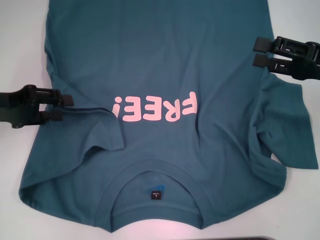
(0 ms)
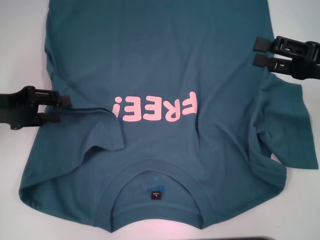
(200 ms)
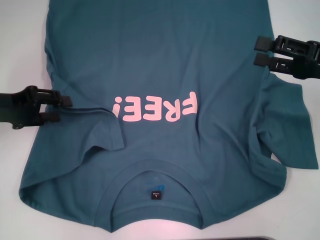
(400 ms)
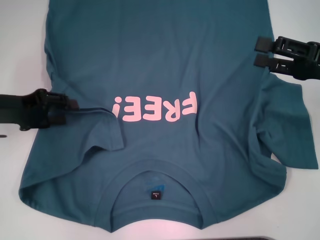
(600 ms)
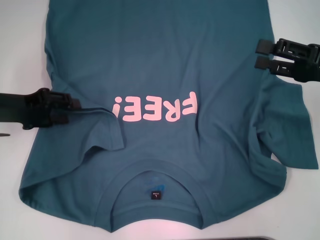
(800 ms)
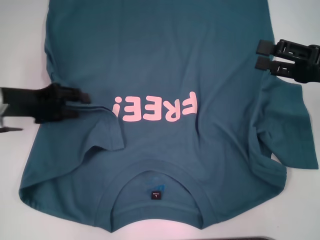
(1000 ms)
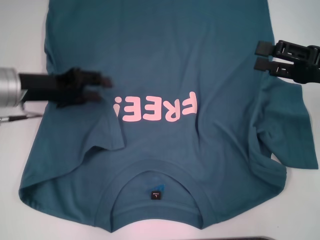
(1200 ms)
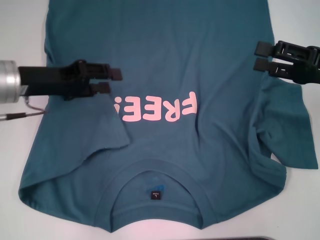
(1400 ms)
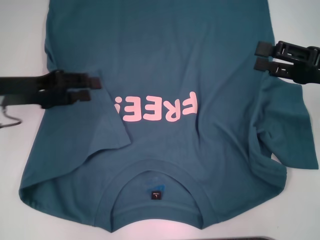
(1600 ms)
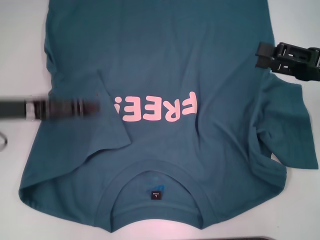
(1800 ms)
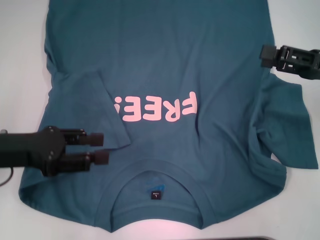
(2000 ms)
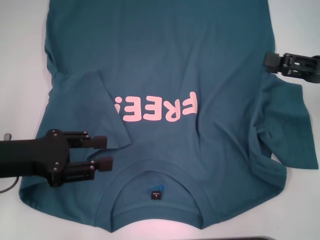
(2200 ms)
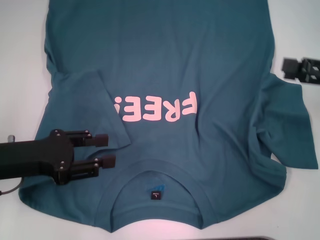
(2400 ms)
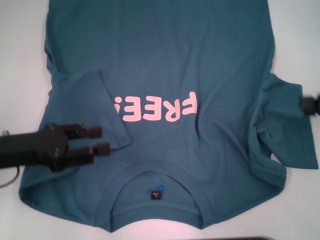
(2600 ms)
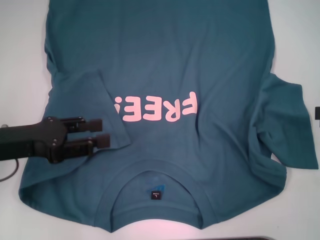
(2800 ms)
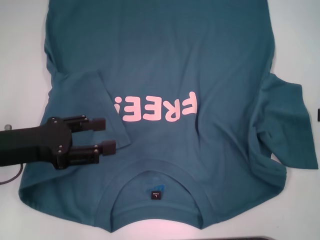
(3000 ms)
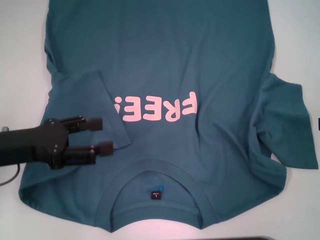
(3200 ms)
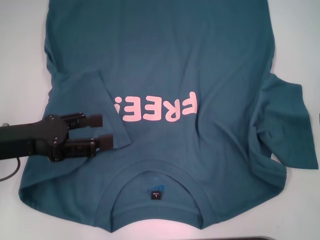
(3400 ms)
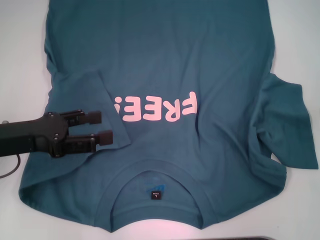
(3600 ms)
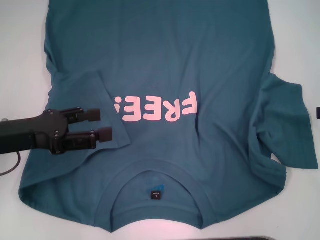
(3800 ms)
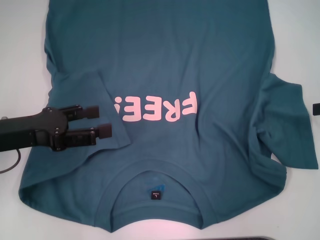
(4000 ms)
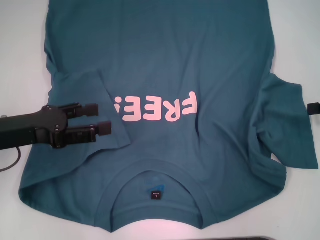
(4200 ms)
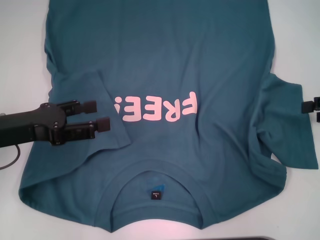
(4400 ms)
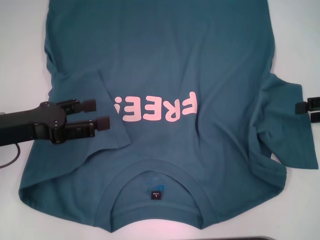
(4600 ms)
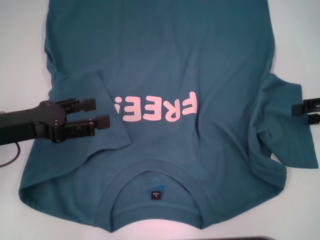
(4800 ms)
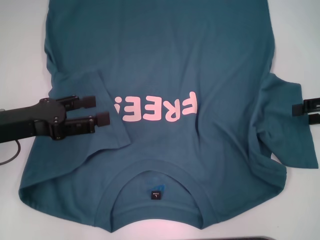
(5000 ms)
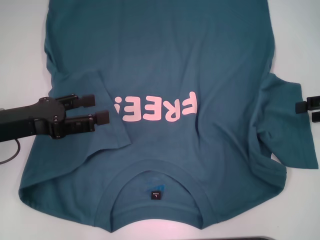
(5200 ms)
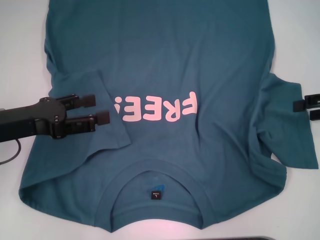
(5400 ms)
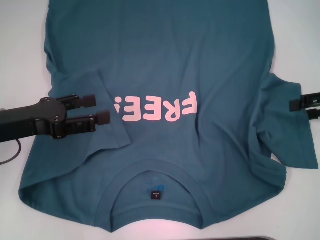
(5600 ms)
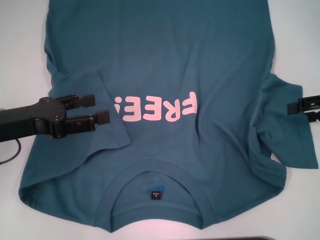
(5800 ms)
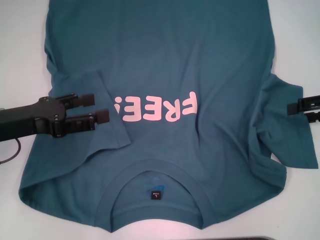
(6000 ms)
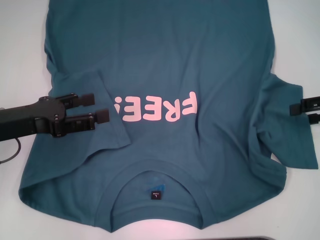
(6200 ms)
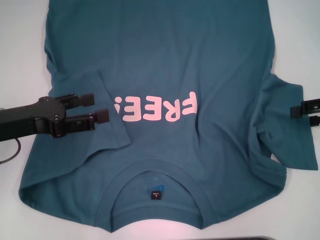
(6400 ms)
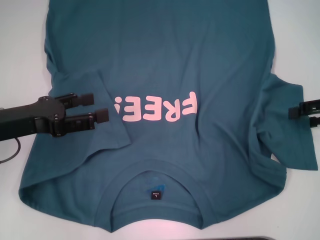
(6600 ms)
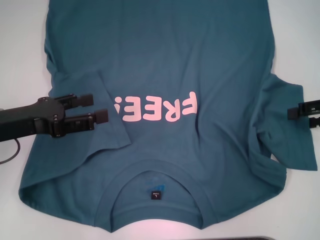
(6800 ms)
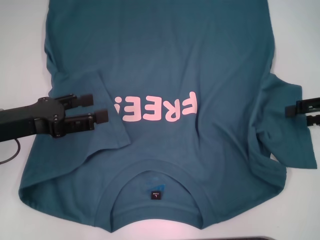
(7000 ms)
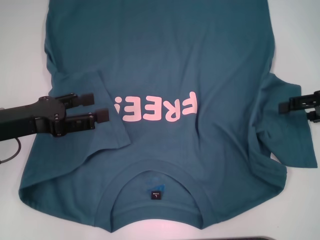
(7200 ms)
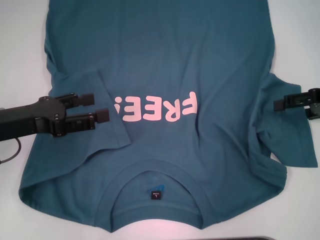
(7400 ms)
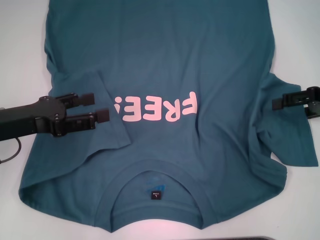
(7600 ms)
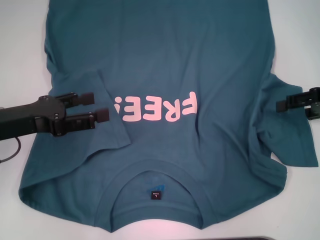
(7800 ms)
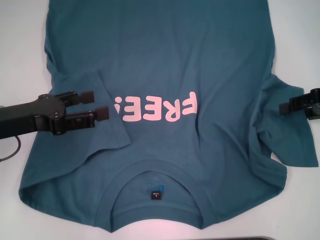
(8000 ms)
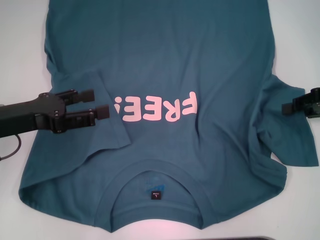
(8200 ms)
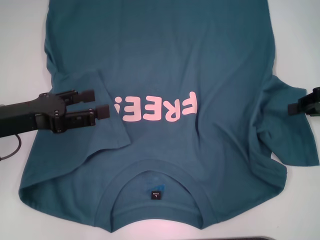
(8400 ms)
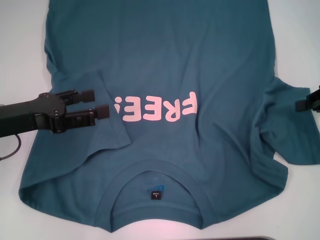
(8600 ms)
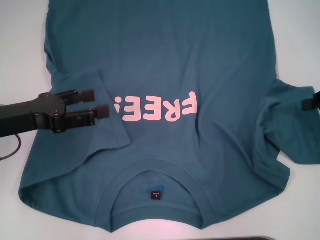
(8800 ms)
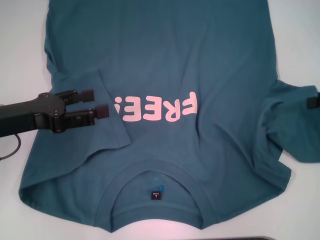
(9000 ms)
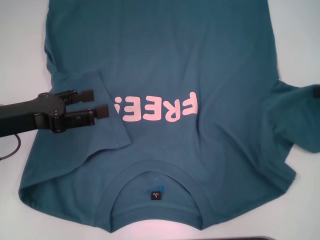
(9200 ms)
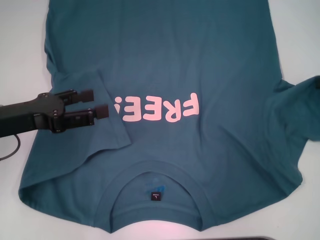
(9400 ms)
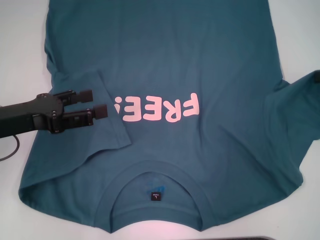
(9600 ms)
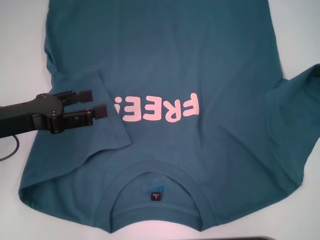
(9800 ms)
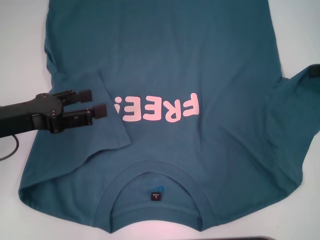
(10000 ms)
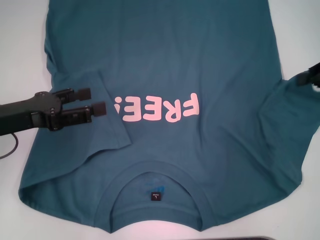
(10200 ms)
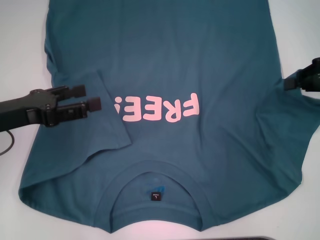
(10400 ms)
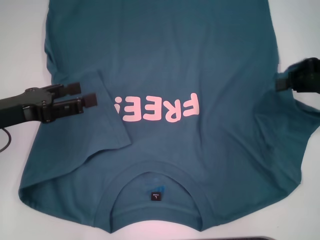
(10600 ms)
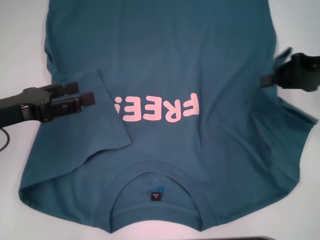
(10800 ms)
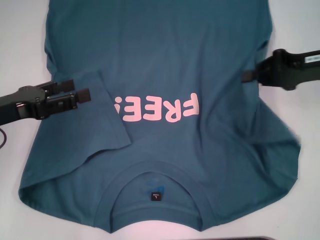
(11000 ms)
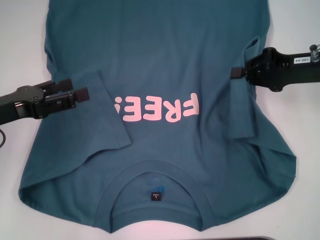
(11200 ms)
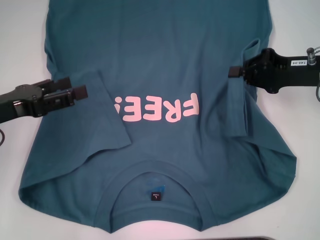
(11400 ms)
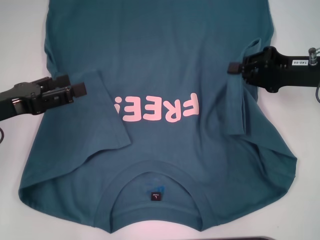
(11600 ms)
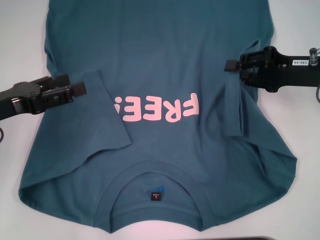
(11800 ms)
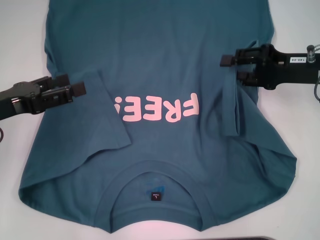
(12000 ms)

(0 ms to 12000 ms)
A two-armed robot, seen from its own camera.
1600 ms - 3000 ms: The right gripper moves to the right, roughly 10 cm. Meanwhile the left gripper moves backward, some 10 cm.
3000 ms - 4400 ms: The grippers move only a little.
4400 ms - 7600 ms: The grippers make only small movements.
7600 ms - 9000 ms: The right gripper closes.
9000 ms - 10400 ms: There are only small adjustments of the grippers.
10400 ms - 12000 ms: The right gripper moves to the left, approximately 5 cm.

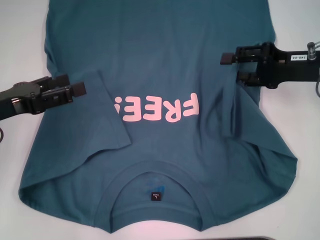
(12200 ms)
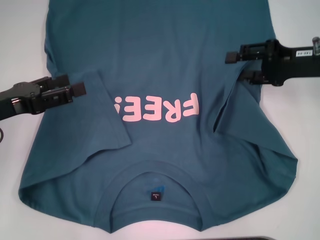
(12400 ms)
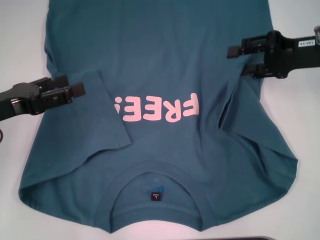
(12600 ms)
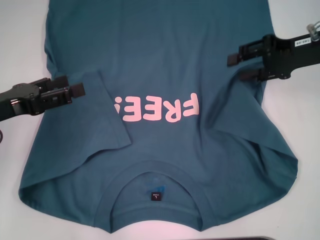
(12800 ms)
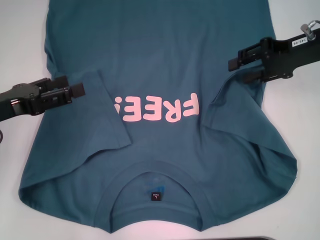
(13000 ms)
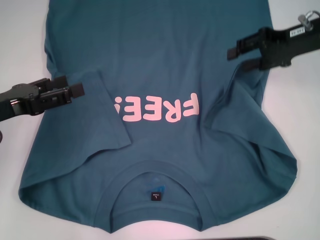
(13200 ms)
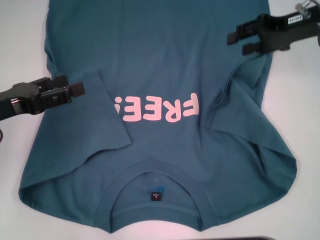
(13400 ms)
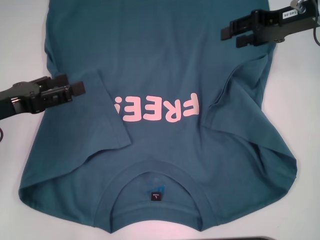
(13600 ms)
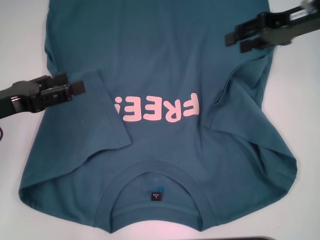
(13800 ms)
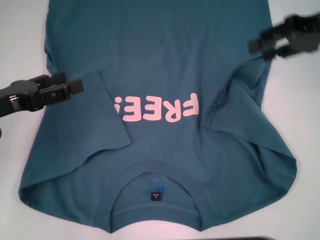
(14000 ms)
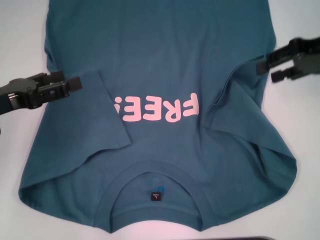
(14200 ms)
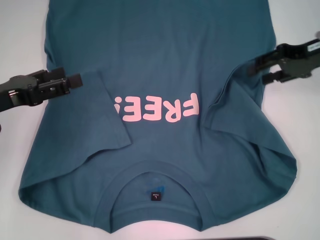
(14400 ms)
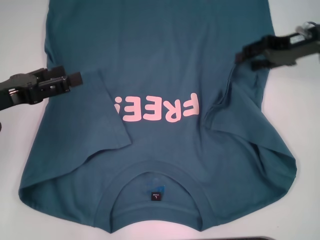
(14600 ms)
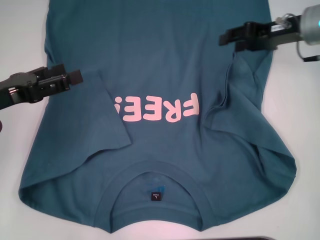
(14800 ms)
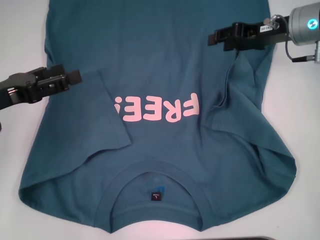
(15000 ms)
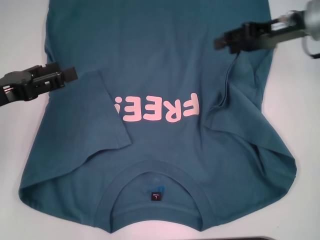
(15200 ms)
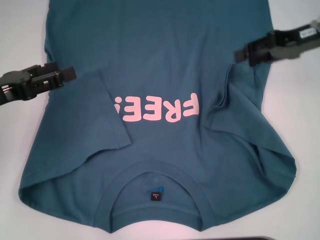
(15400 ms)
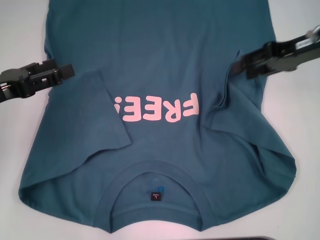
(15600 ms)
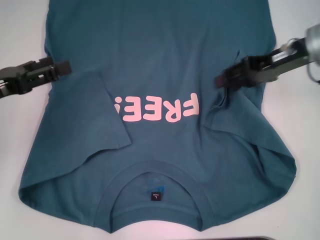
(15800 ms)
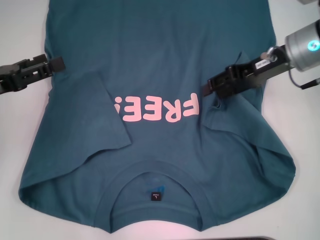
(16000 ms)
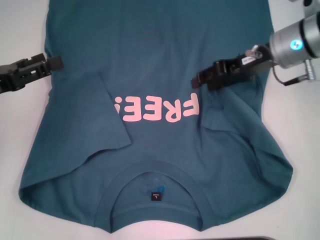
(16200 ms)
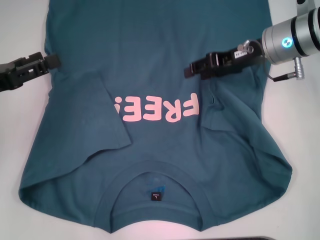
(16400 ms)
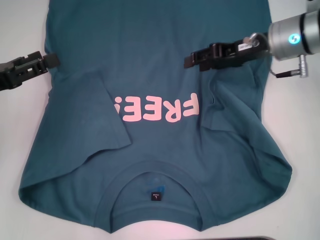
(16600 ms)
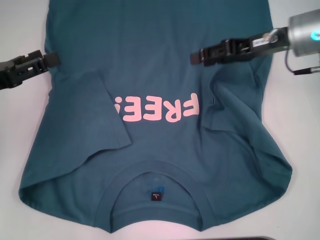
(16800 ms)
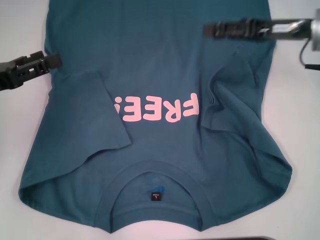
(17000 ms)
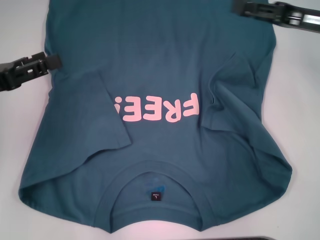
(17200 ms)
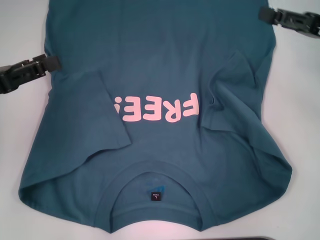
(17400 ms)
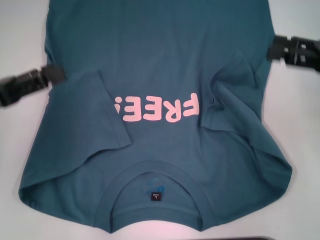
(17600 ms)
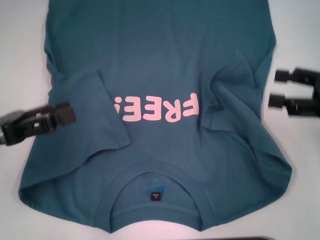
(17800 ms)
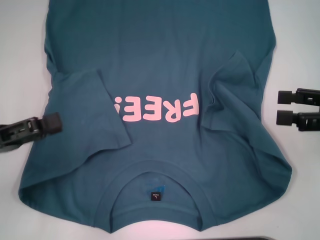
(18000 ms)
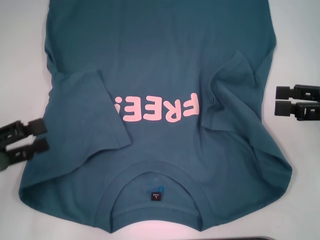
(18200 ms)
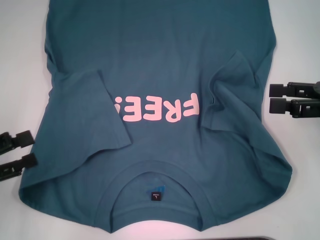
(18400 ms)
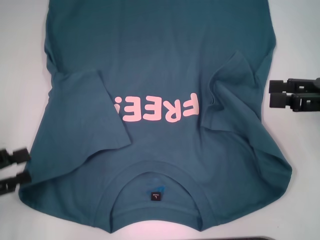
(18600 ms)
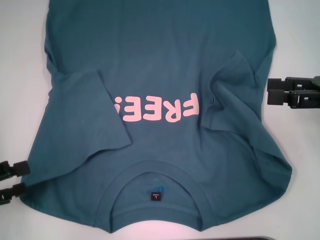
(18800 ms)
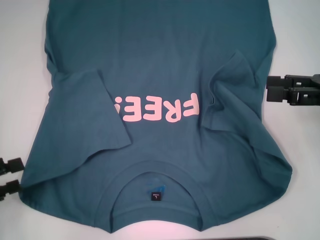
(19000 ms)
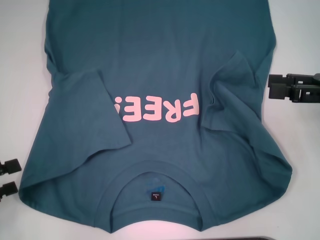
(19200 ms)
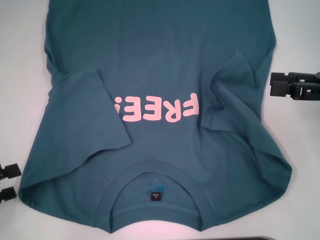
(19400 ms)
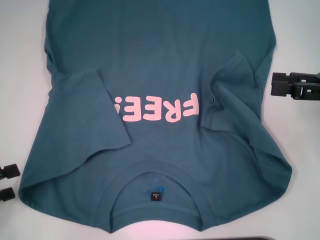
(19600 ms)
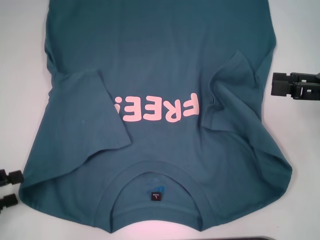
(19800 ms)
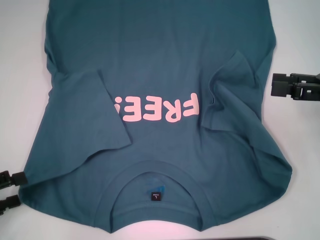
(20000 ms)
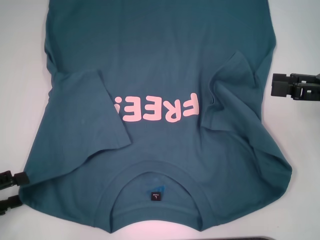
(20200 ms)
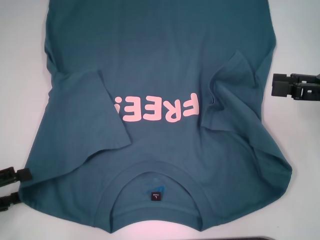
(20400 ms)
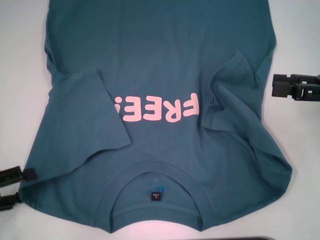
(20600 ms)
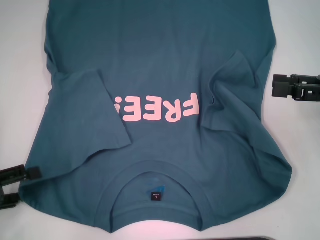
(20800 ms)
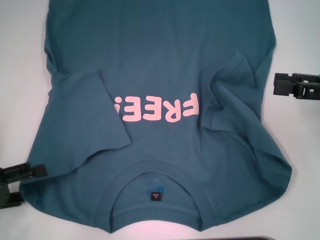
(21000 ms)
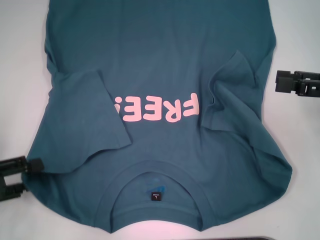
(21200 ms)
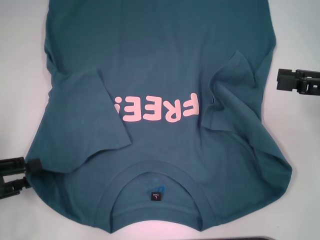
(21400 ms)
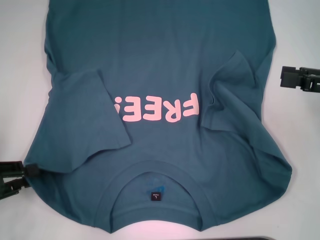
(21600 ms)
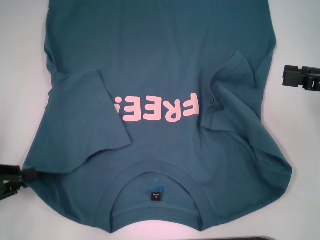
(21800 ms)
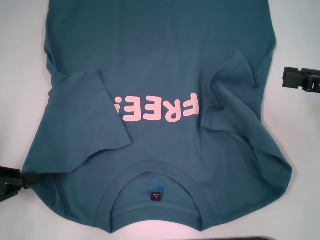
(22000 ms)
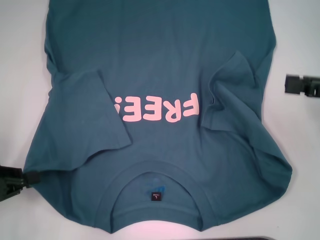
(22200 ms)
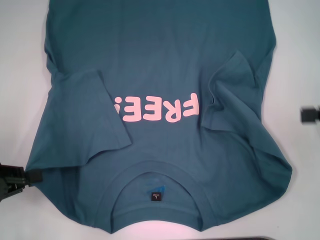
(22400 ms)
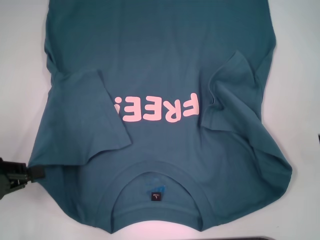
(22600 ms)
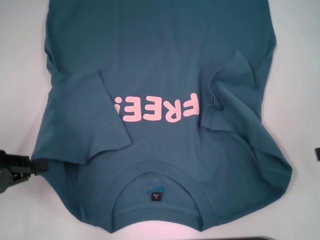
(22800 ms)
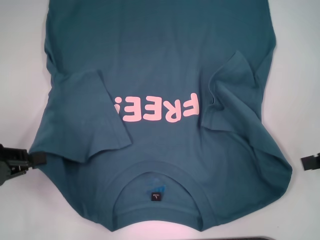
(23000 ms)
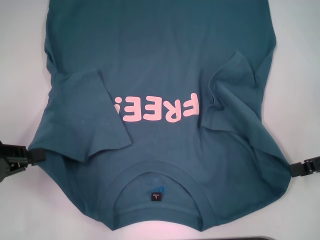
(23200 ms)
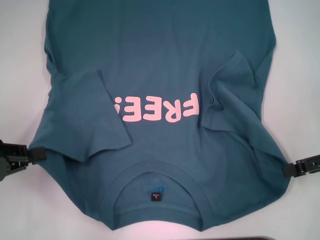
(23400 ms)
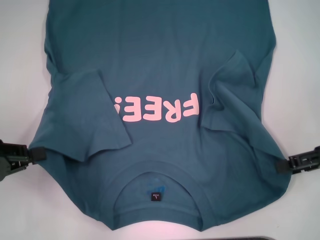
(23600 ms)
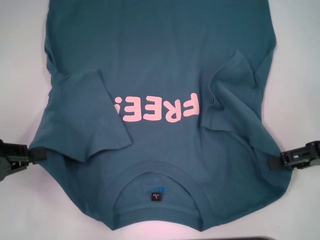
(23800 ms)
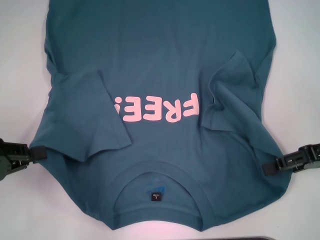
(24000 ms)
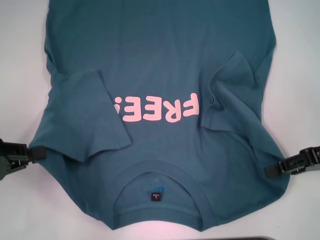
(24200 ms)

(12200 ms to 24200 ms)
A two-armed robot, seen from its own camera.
Step, 12200 ms - 16400 ms: Fold the bottom right sleeve to the right.
Step, 16600 ms - 21600 ms: Grab the bottom left corner with your left hand.
12200 ms - 13800 ms: The right gripper shifts about 10 cm upward and forward.
15200 ms - 16600 ms: The right gripper moves roughly 5 cm.
16600 ms - 18200 ms: The left gripper shifts approximately 10 cm backward. The right gripper shifts some 20 cm backward and to the right.
18200 ms - 19800 ms: The left gripper changes place by some 5 cm.
19800 ms - 21200 ms: The grippers make only small movements.
21200 ms - 22600 ms: The left gripper closes up, while the right gripper heads to the right, covering roughly 5 cm.
22600 ms - 24200 ms: The right gripper heads to the left and downward, covering roughly 10 cm.
